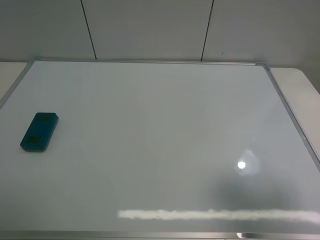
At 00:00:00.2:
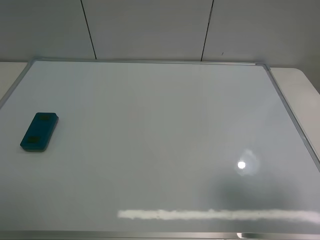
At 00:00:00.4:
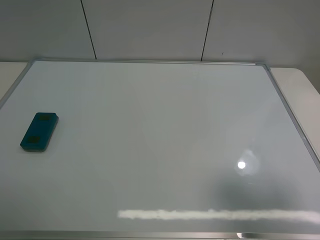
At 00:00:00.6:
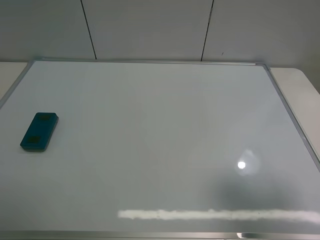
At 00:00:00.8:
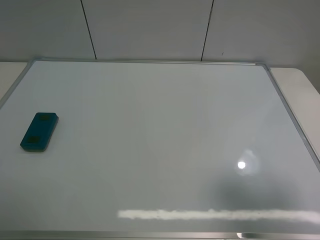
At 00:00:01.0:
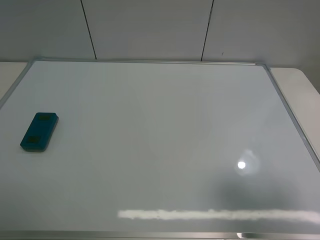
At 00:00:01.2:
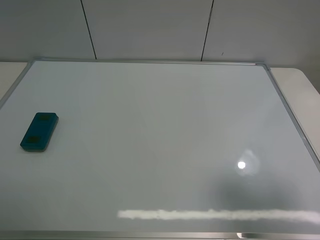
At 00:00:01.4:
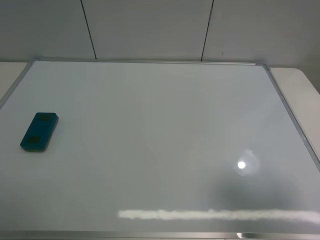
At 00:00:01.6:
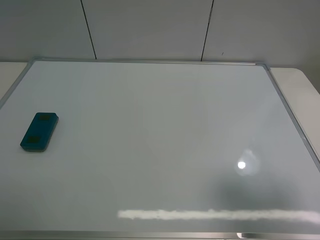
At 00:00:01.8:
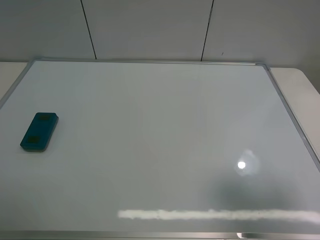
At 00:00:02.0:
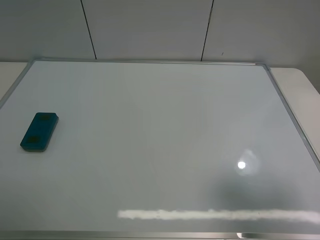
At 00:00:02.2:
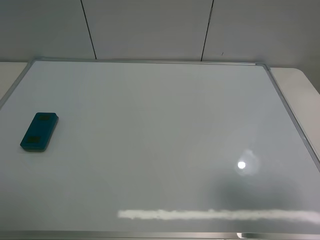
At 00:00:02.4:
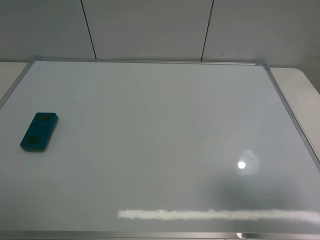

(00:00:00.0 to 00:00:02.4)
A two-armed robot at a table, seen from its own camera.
Task of the whole recording: use the left claw to pick up the whiteboard eraser, wipe the notes on the whiteboard clean, and then put them back in place.
00:00:00.0 - 00:00:02.4: The two grippers keep their place.
